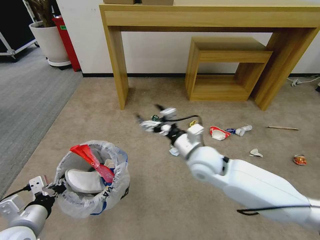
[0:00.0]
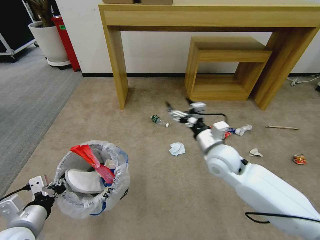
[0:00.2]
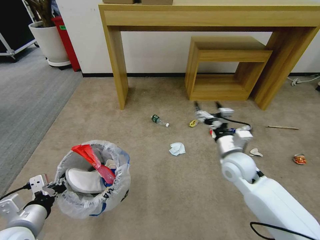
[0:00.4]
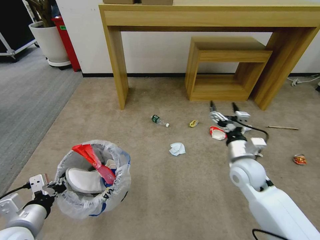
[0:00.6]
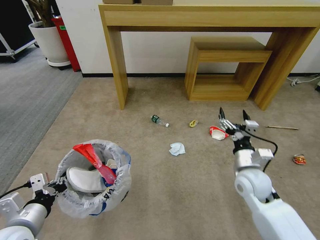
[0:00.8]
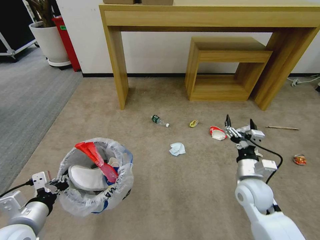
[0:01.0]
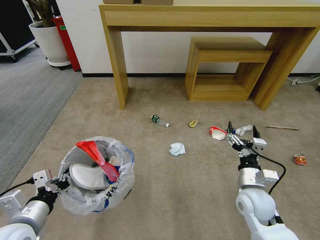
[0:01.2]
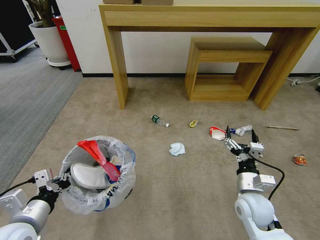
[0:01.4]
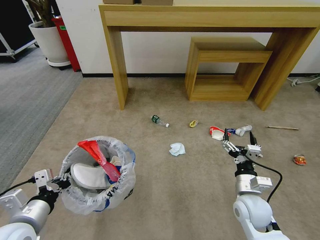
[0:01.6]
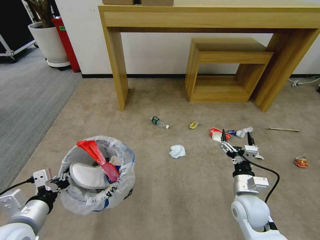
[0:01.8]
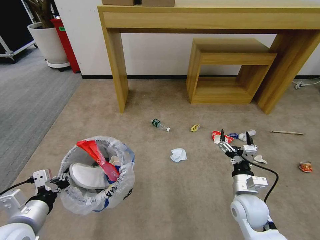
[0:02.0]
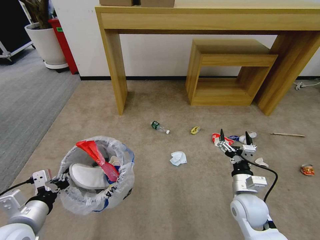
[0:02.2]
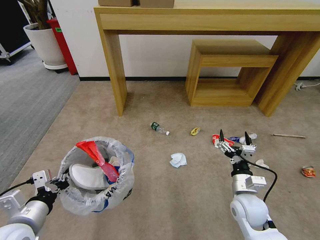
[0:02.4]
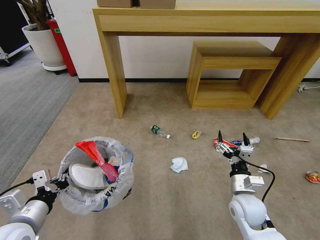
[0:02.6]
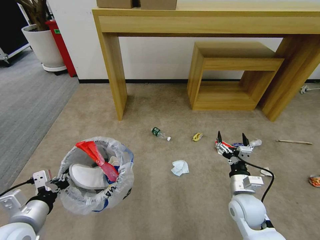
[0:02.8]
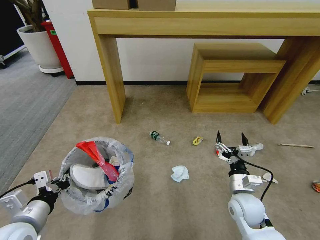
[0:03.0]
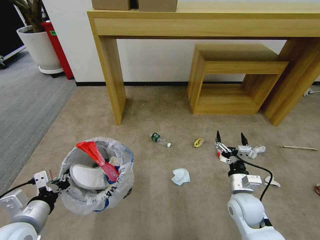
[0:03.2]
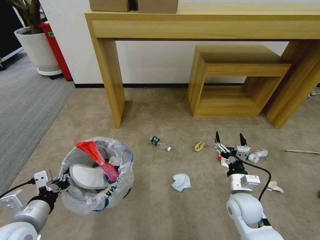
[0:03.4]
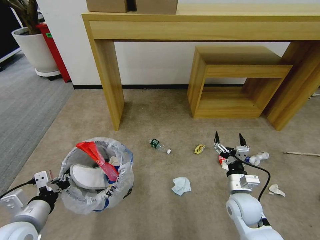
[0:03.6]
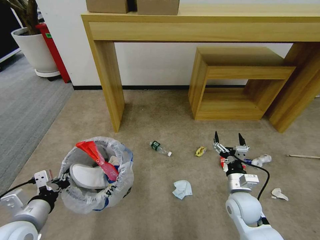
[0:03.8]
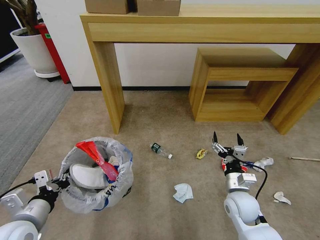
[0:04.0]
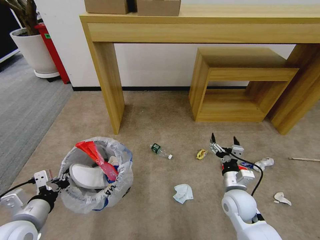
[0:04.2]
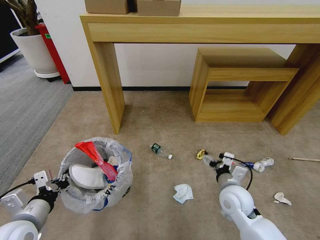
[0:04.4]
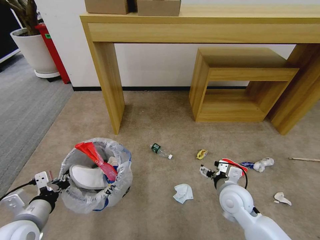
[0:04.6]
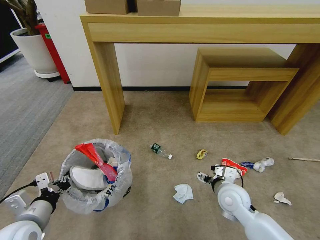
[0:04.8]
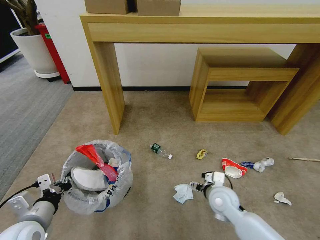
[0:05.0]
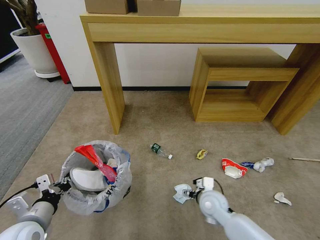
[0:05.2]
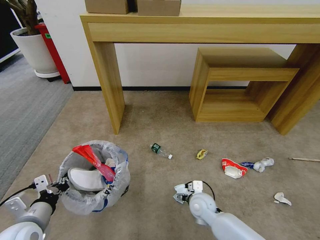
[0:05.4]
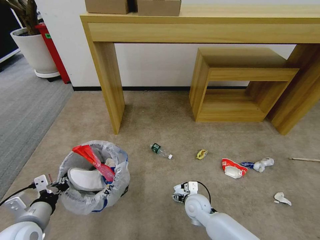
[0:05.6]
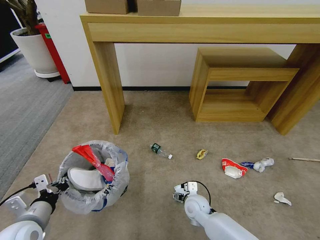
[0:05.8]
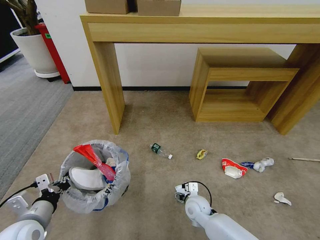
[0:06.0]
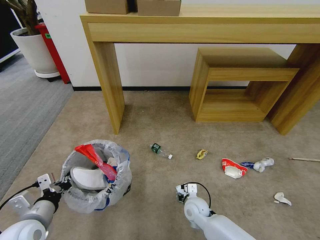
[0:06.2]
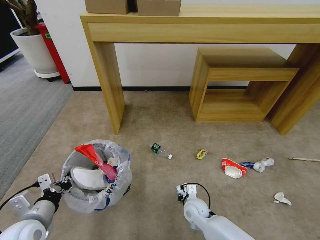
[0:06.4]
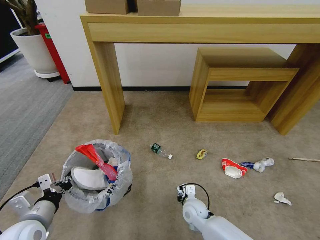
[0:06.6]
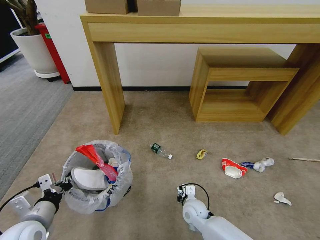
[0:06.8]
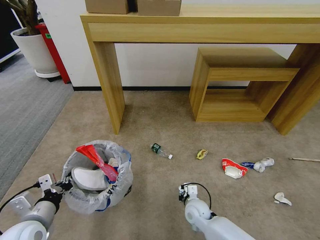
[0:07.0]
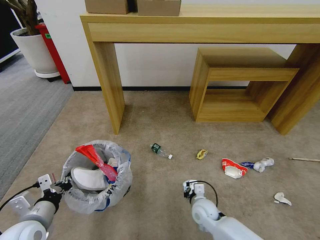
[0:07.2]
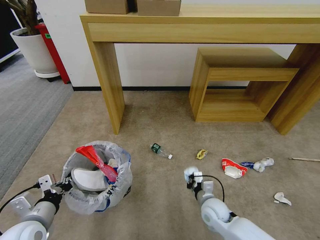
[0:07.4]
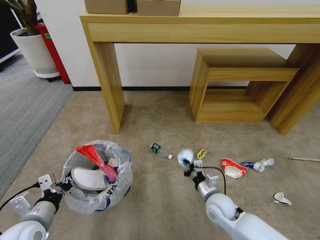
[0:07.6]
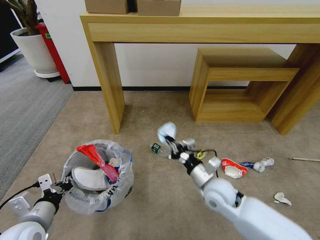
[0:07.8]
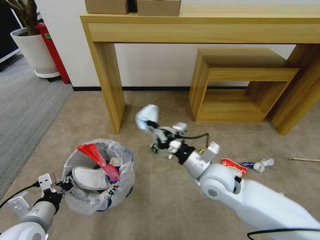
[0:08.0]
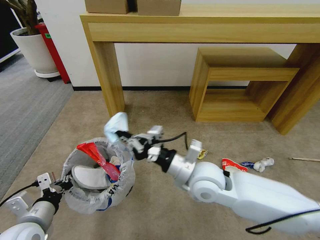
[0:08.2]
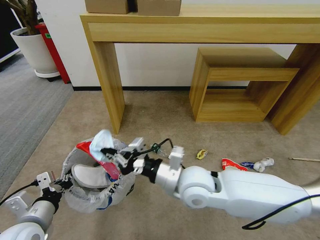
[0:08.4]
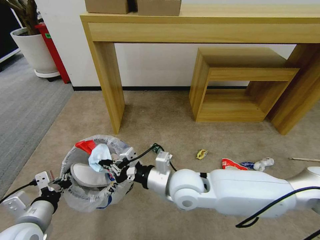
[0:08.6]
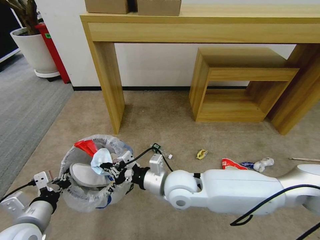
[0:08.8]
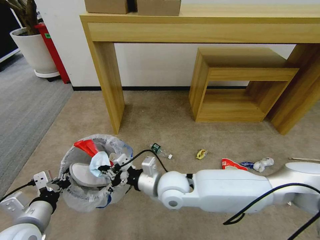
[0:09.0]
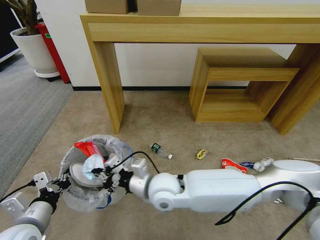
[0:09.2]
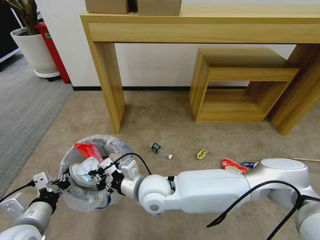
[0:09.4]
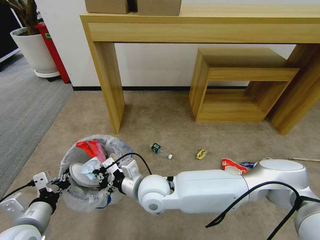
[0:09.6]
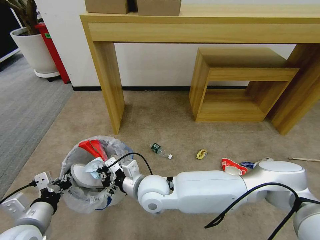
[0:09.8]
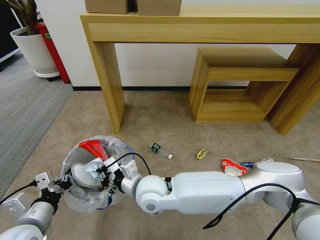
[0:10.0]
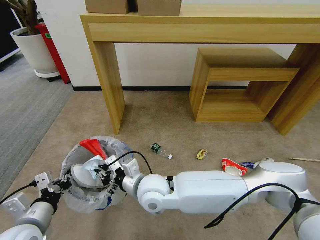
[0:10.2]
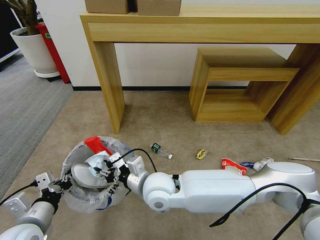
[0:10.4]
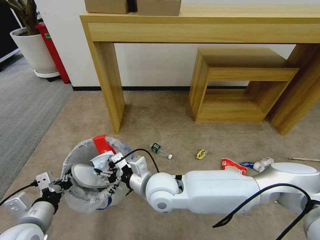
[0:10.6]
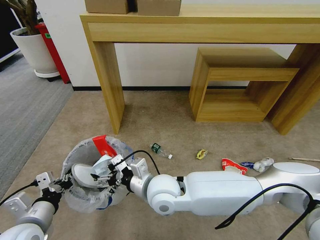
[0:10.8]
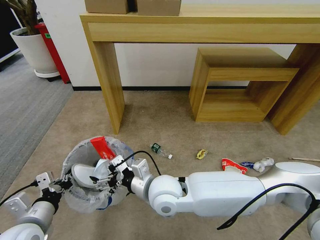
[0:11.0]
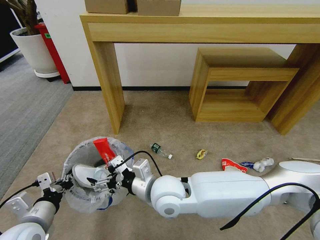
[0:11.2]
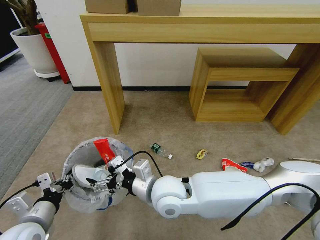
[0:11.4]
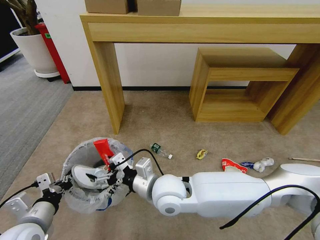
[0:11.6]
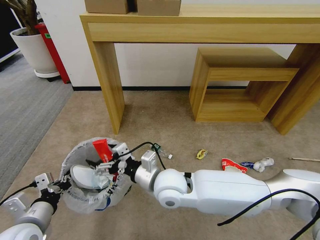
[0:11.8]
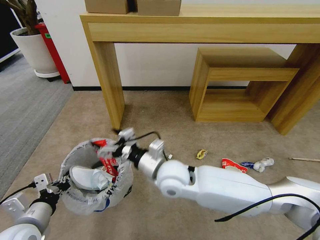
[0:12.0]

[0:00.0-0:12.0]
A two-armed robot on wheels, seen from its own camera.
Task of the whole recording: Pick up the trash bin and place the garbage on the floor into it.
0:00.0 to 0:01.6: The right gripper moves to the right, downward and backward, roughly 20 cm.
0:04.4 to 0:06.0: The right gripper moves downward and to the left, some 15 cm.
0:06.0 to 0:07.6: The right gripper goes some 10 cm to the right and upward, and closes up.
0:07.6 to 0:09.0: The right gripper travels to the left and upward by approximately 25 cm.
0:09.0 to 0:10.4: The right gripper opens.
0:10.4 to 0:12.0: The right gripper ends up some 5 cm from where it was, and opens its fingers.

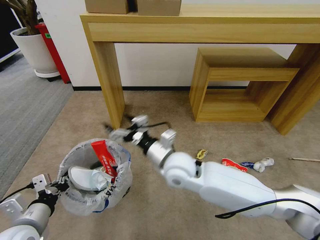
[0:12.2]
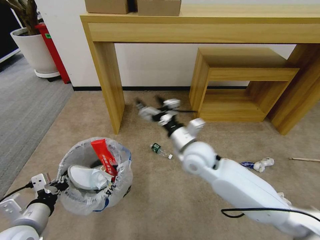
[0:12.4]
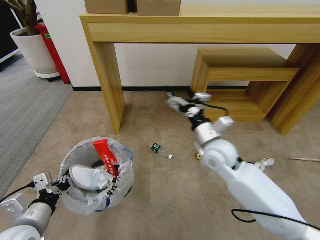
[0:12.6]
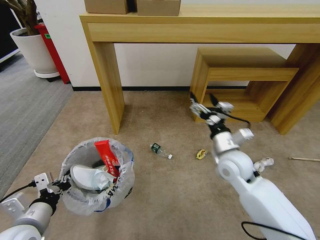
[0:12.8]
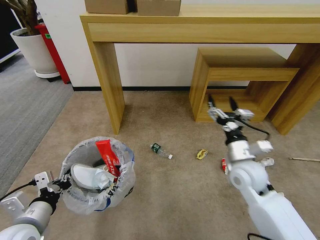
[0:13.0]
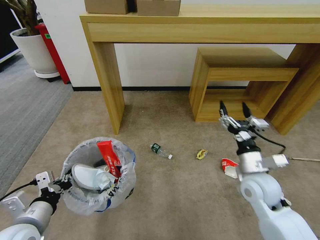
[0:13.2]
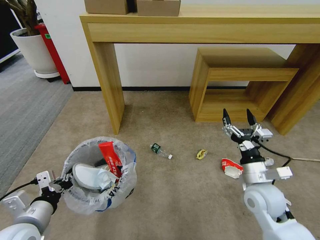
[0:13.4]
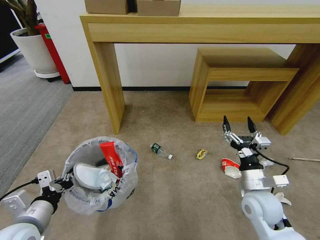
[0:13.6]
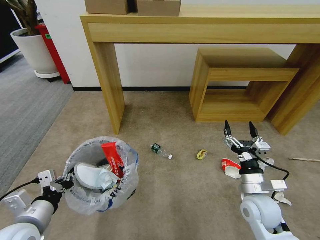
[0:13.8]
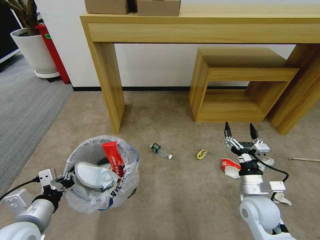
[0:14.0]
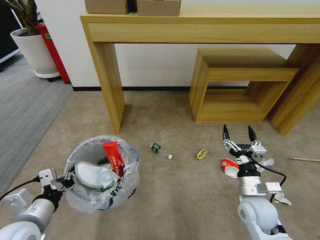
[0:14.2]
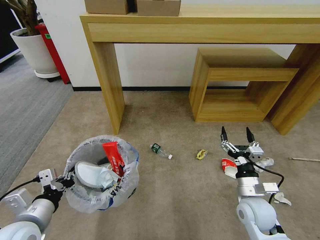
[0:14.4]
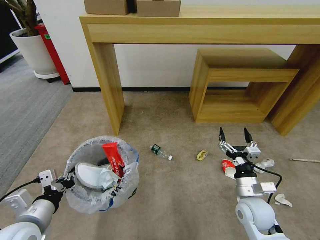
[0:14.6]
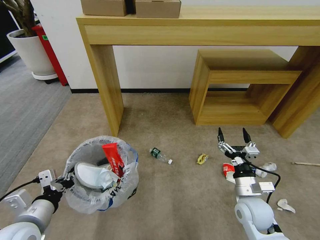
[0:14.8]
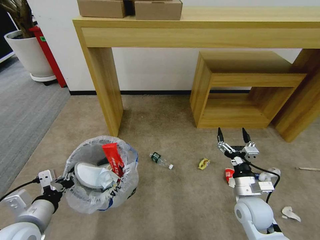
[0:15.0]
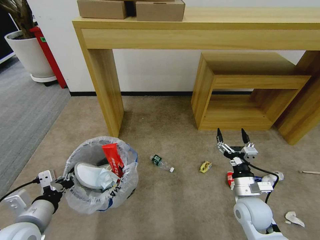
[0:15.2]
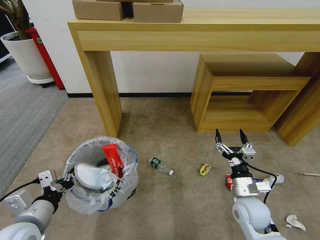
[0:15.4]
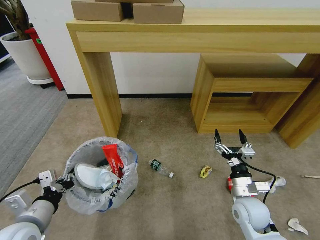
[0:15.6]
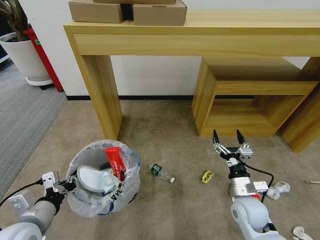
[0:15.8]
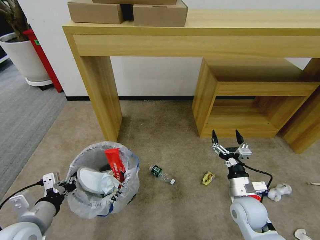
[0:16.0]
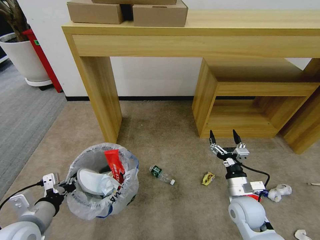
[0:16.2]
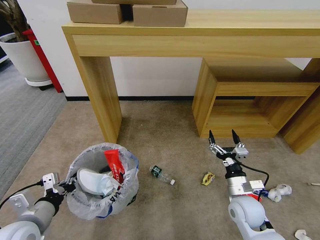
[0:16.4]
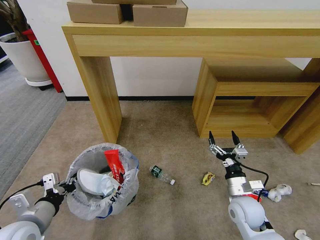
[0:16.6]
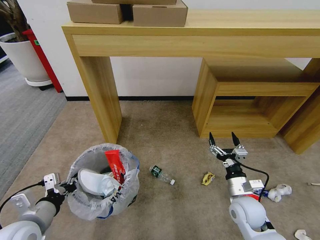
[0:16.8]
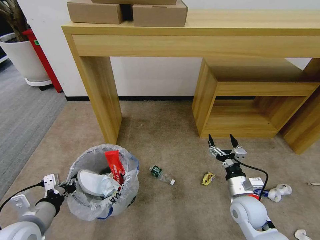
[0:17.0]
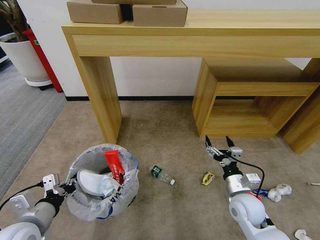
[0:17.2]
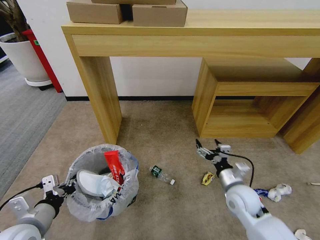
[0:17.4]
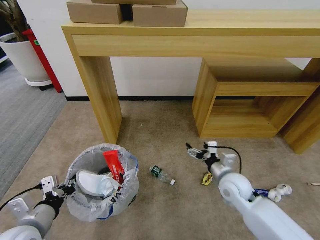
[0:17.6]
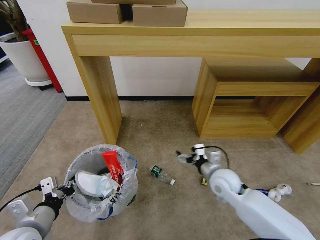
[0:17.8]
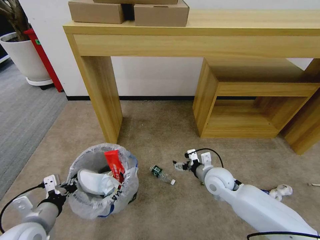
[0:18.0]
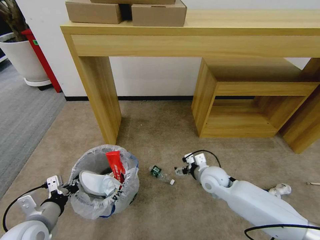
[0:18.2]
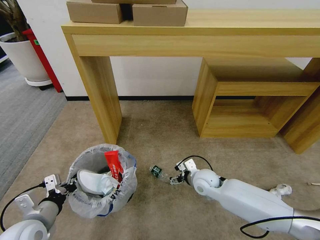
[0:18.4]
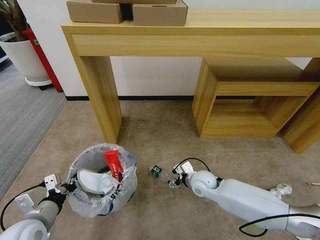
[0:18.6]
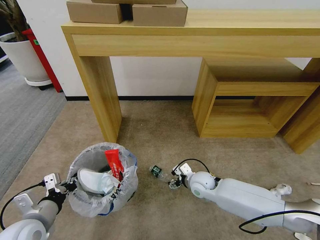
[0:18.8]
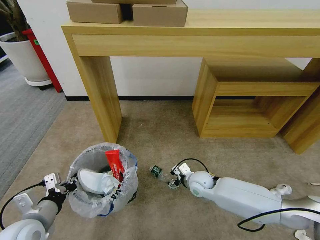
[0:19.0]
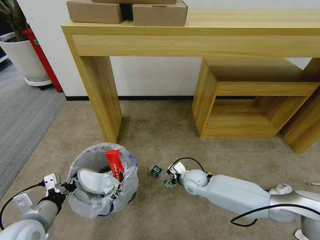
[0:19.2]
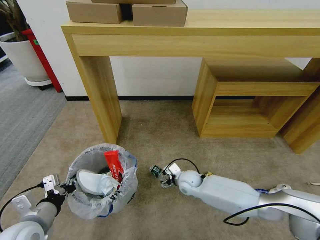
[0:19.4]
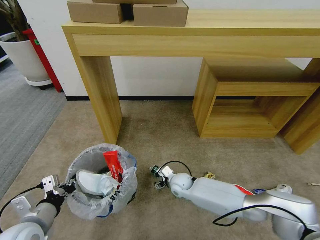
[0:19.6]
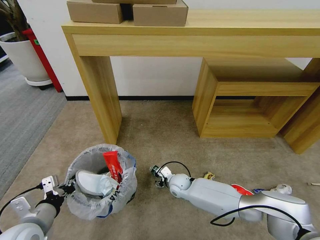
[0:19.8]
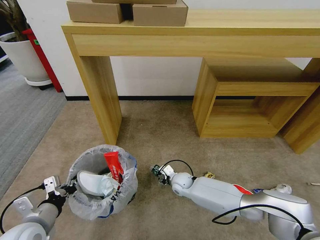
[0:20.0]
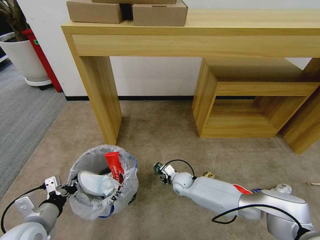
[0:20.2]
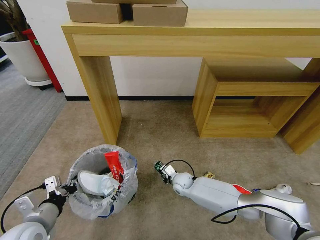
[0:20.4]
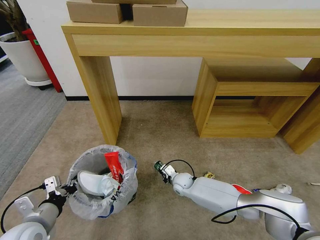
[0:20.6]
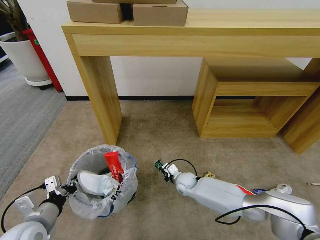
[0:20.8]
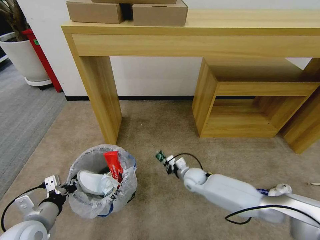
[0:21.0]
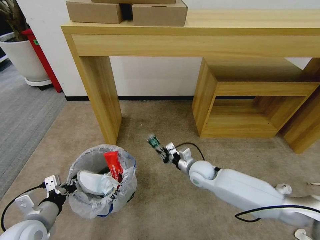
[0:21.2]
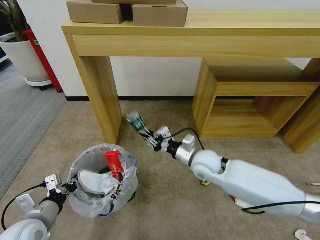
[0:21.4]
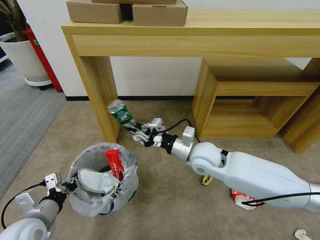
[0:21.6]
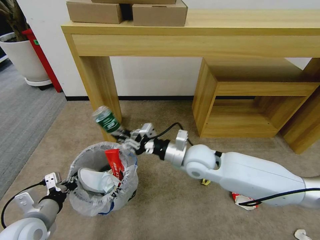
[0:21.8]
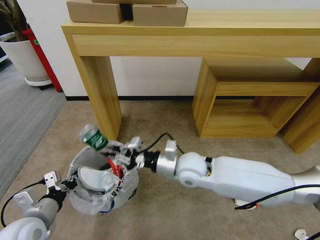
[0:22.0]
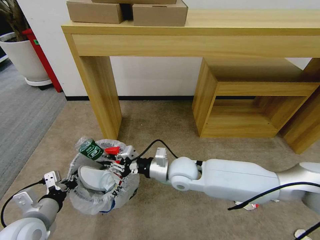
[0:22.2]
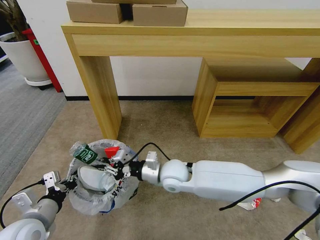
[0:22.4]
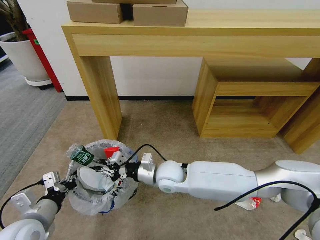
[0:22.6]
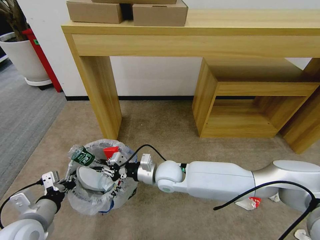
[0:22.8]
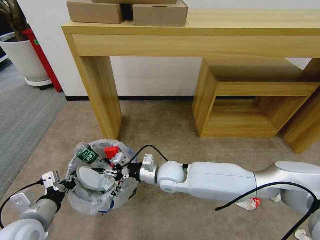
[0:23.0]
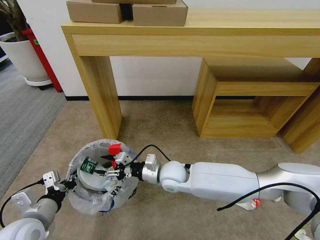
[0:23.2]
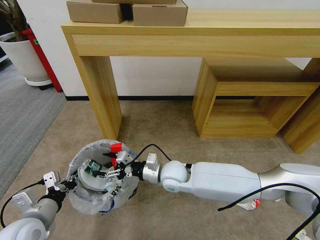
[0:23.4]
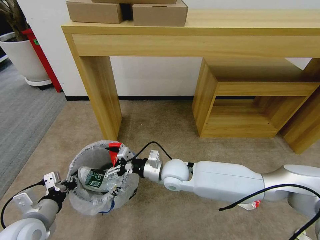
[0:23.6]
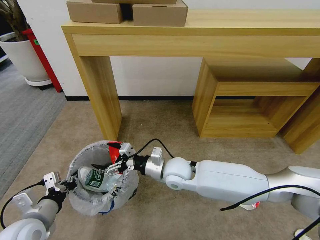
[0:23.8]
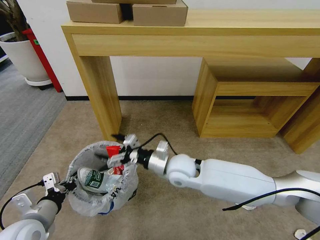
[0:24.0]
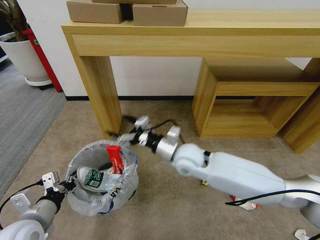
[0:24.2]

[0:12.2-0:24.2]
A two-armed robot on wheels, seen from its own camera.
Task of the whole recording: Pick up the trash bin and place the garbage on the floor into it.
0:12.2 to 0:13.8: The right gripper goes some 25 cm to the right.
0:16.6 to 0:18.2: The right gripper goes about 15 cm forward and to the left.
0:18.2 to 0:19.8: The right gripper heads downward and to the left, covering some 15 cm.
0:19.8 to 0:21.2: The right gripper is displaced upward and to the right by about 15 cm, and closes up.
0:21.2 to 0:22.6: The right gripper goes approximately 15 cm to the left and upward.
0:22.6 to 0:24.2: The right gripper travels upward and to the right by approximately 10 cm, and opens its fingers.
